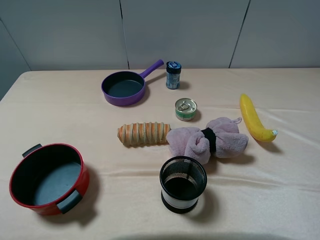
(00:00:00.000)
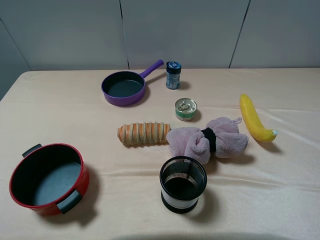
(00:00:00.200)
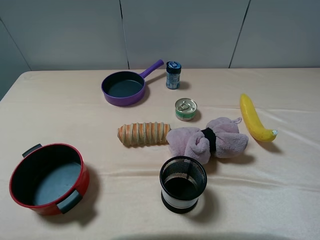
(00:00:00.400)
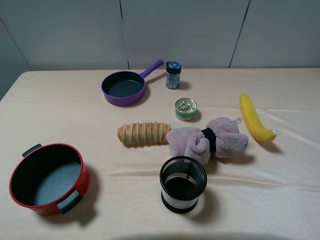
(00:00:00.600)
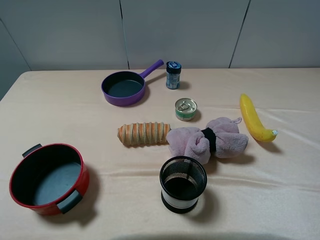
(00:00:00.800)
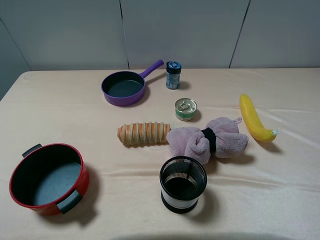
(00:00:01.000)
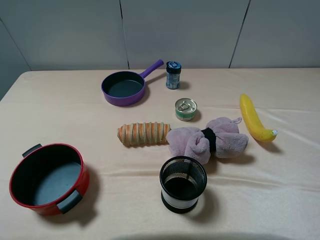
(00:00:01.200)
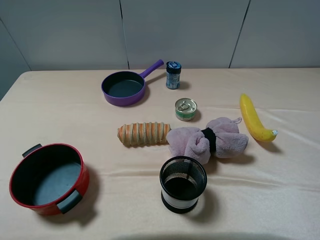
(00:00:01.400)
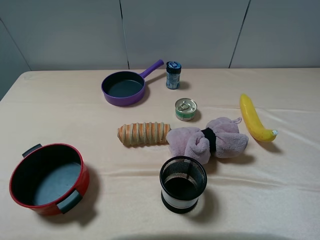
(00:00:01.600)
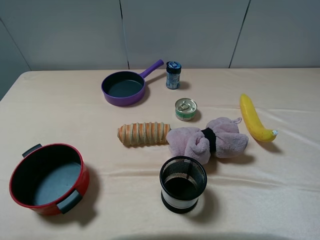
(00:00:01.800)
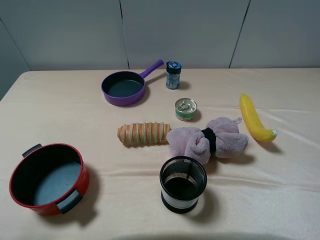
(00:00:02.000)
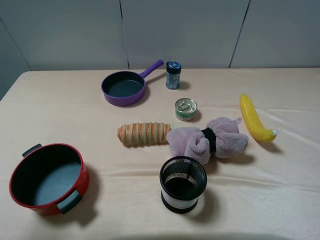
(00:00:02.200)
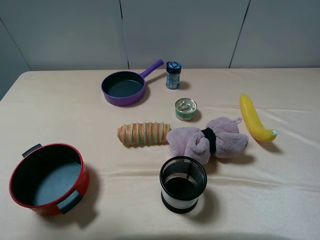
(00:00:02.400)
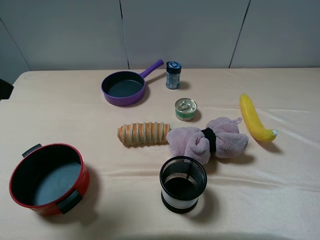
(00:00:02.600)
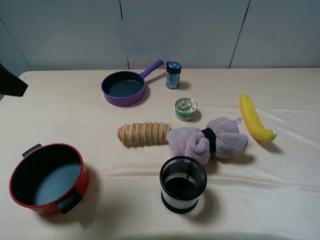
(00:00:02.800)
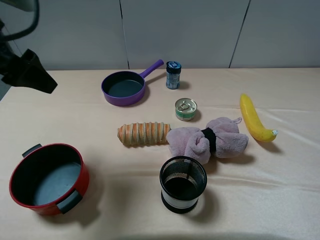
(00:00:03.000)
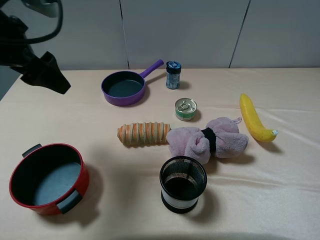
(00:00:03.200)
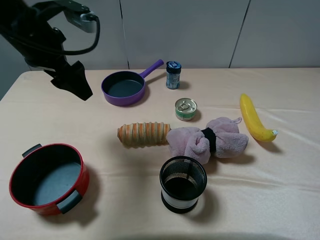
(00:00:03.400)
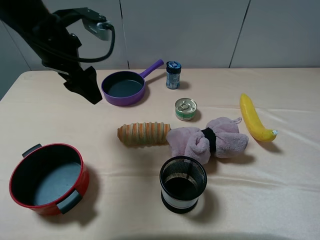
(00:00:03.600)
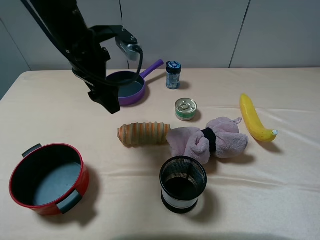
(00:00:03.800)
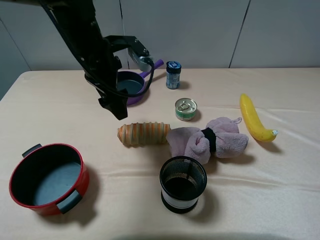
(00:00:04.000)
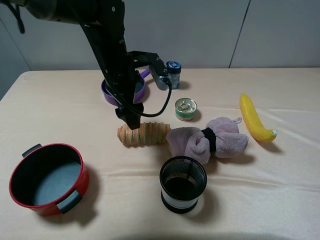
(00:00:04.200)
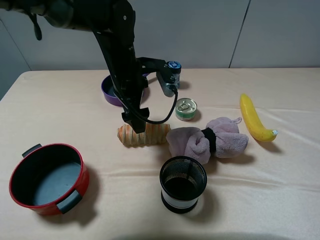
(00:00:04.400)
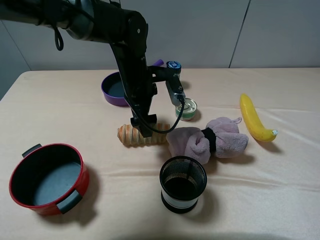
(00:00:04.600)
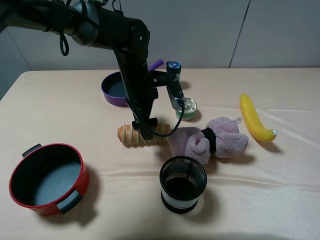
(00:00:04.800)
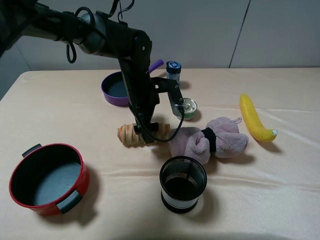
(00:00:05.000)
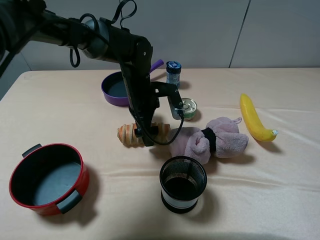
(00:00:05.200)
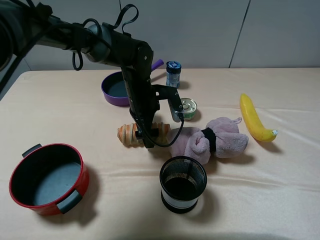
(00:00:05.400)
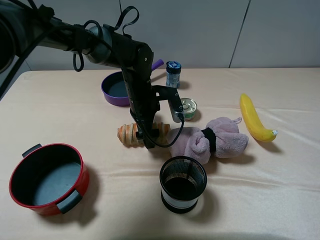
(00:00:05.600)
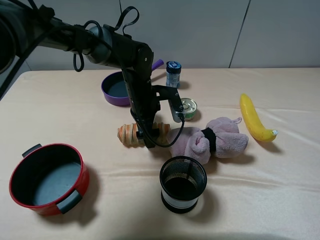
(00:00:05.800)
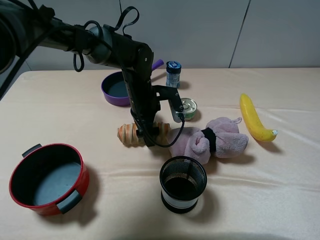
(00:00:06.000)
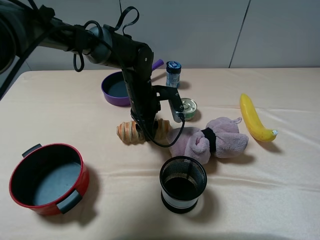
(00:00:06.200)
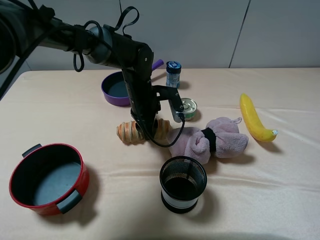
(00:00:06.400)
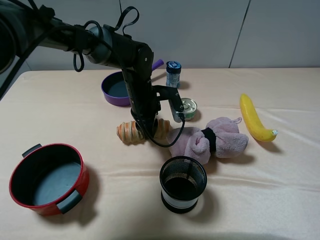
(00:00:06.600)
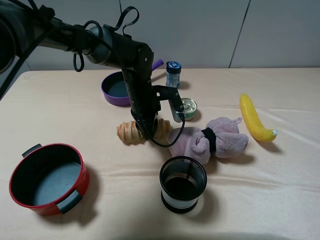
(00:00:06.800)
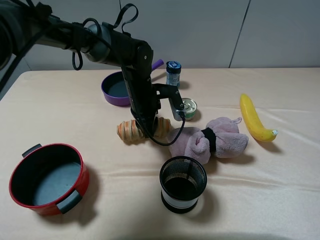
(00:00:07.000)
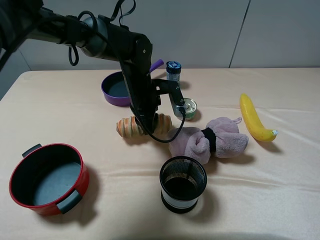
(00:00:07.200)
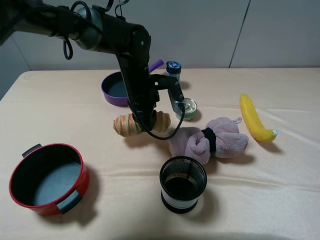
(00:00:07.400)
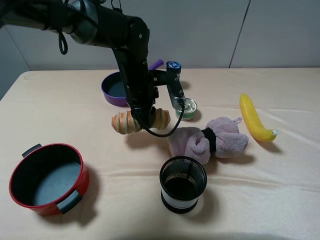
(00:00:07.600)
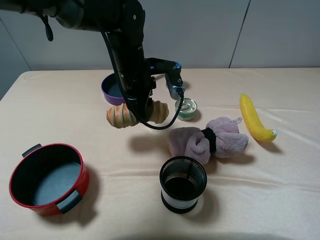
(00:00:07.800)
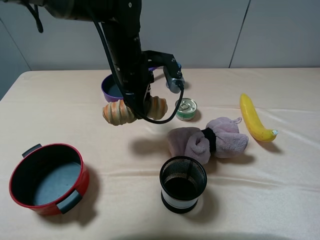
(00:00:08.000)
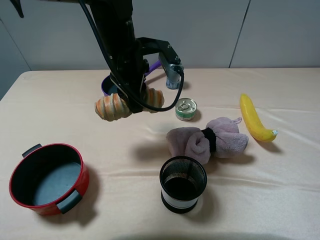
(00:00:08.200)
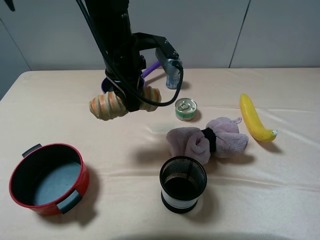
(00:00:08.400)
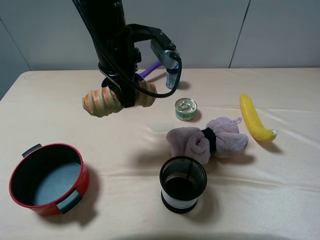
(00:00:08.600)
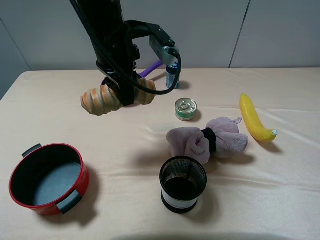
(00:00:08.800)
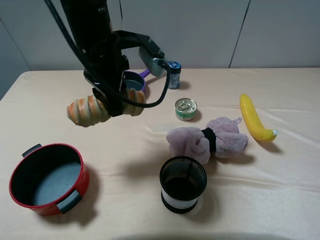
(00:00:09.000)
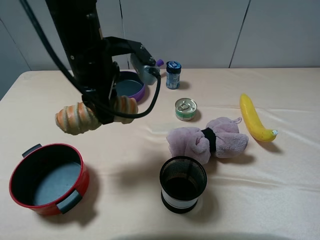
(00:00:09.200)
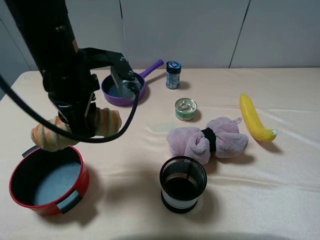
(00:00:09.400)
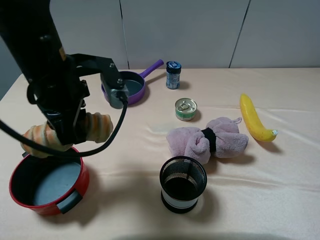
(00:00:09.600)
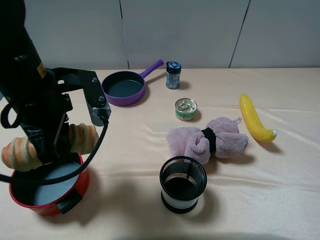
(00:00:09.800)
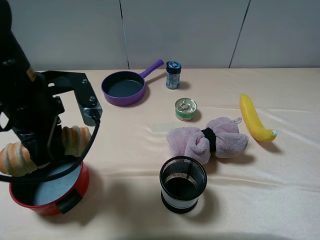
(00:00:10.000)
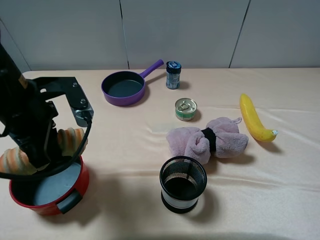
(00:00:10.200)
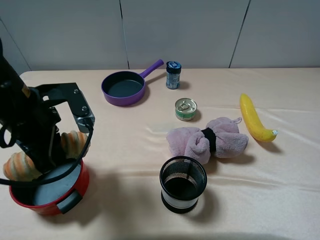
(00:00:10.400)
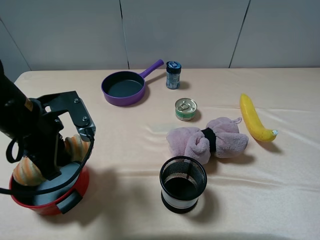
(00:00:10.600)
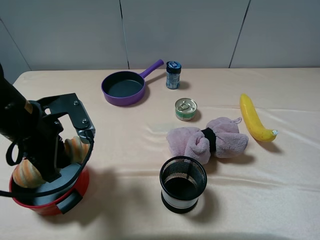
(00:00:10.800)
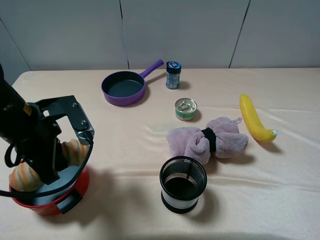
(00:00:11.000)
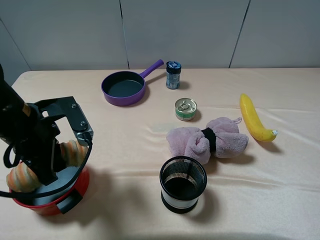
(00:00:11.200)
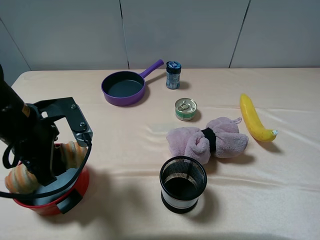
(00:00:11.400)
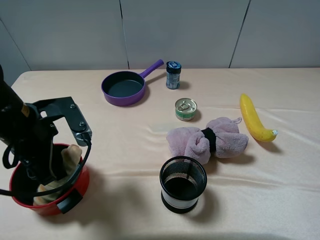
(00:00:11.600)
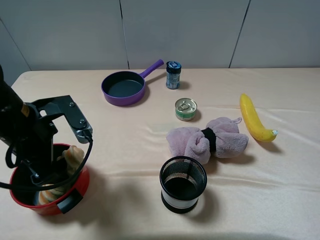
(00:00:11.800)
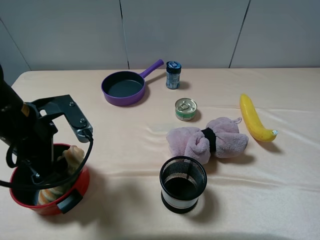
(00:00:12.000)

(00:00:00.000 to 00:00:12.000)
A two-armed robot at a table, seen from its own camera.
Task of the whole recording: pick up an item with a gripper and place it in a random container on the table.
Step, 00:00:00.000 - 00:00:06.400: Grasp the long bread with the left gripper.
00:00:00.000 - 00:00:01.600: Both grippers stay put.
00:00:01.600 - 00:00:03.000: The left gripper is displaced forward by some 25 cm.
00:00:03.000 - 00:00:04.400: The left gripper is displaced to the right, downward and forward by about 25 cm.
00:00:04.400 - 00:00:06.000: The left gripper heads downward, covering approximately 5 cm.
00:00:06.000 - 00:00:07.600: The left gripper goes some 5 cm upward, and closes up.
00:00:07.600 - 00:00:09.000: The left gripper goes some 10 cm upward and backward.
00:00:09.000 - 00:00:10.400: The left gripper goes approximately 15 cm to the left, backward and downward.
00:00:10.400 - 00:00:12.000: The left gripper opens up.

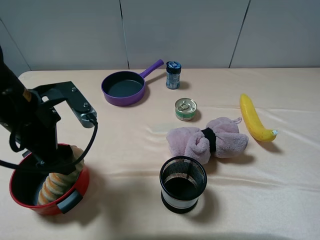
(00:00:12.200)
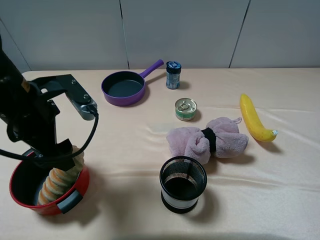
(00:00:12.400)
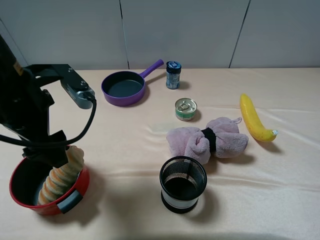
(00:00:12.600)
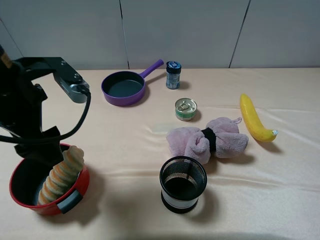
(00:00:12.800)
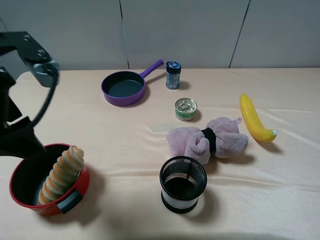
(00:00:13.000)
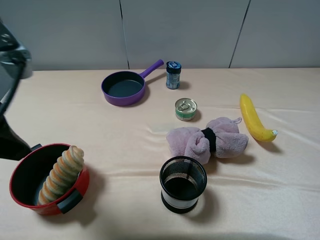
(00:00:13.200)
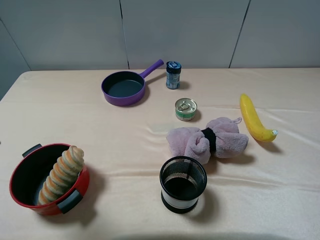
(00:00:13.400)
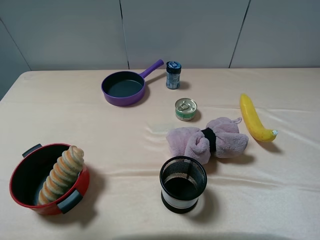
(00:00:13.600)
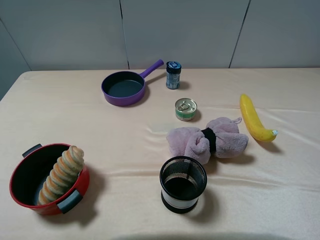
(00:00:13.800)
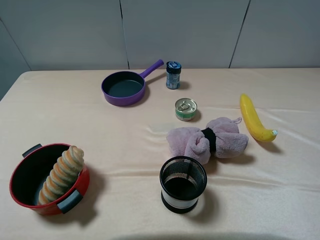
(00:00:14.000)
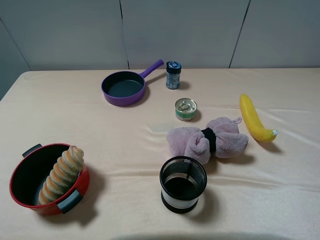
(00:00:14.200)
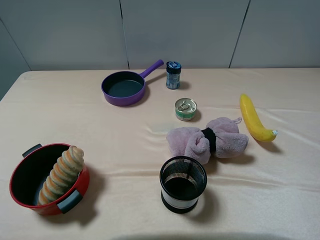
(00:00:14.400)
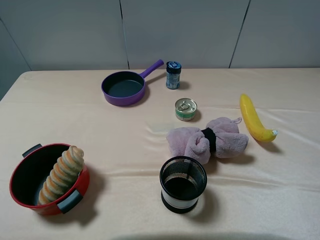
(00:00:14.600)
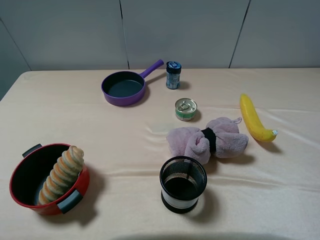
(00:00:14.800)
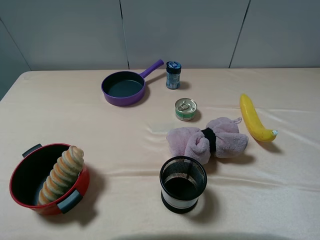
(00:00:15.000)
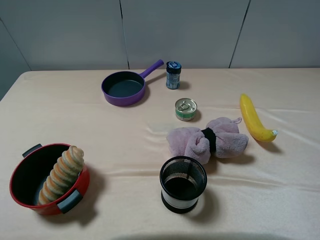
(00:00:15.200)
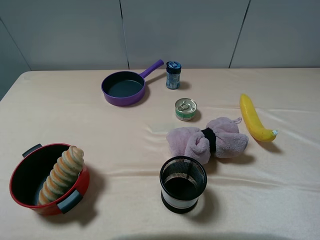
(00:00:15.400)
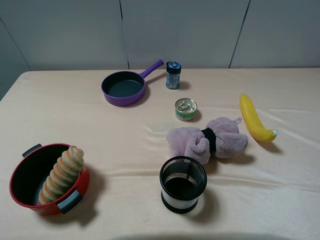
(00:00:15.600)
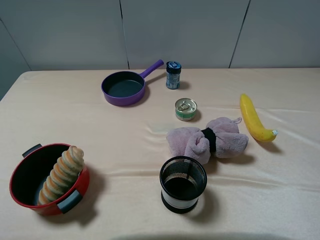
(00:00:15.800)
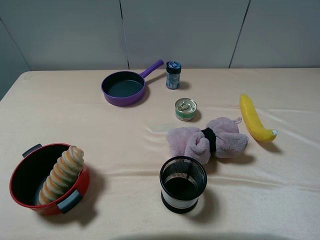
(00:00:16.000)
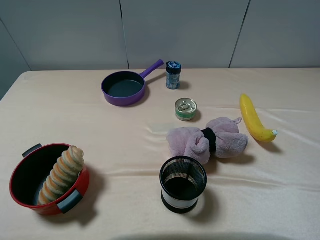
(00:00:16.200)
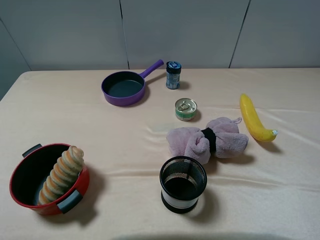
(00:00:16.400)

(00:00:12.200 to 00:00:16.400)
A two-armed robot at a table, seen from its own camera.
Task of the whole recording: pick up an item with a gripper and place it in a random container on the table.
00:00:12.200 - 00:00:13.600: The left gripper travels upward, backward and to the left by approximately 20 cm.
00:00:15.000 - 00:00:16.400: Both grippers stay put.
